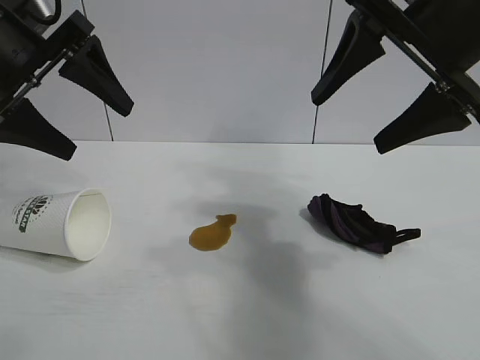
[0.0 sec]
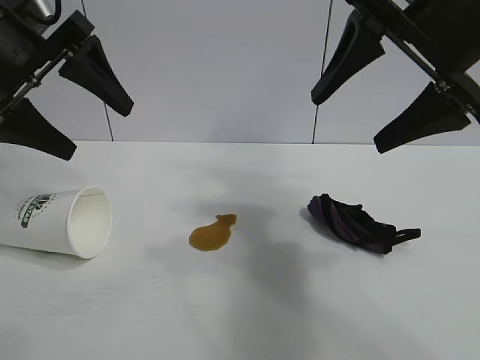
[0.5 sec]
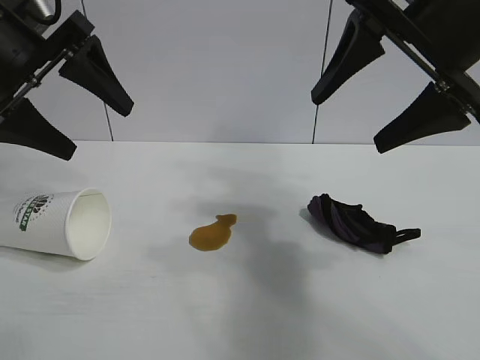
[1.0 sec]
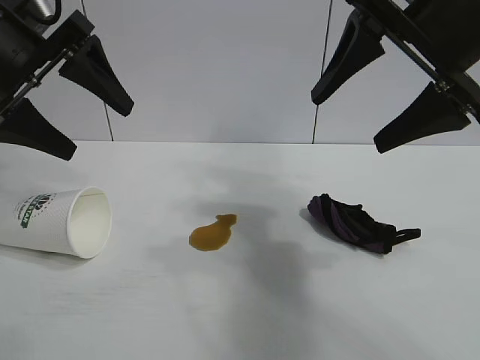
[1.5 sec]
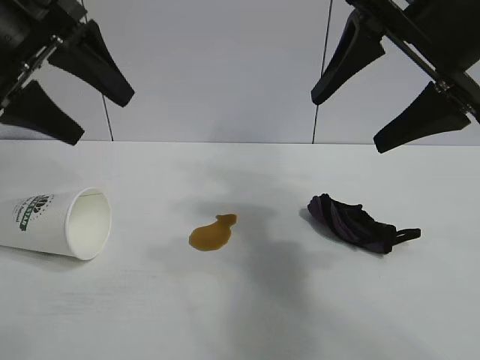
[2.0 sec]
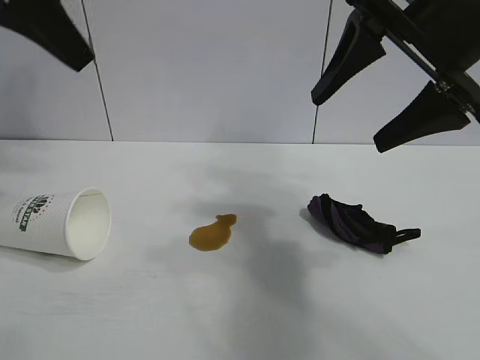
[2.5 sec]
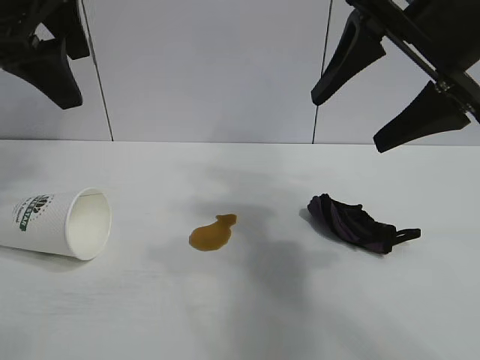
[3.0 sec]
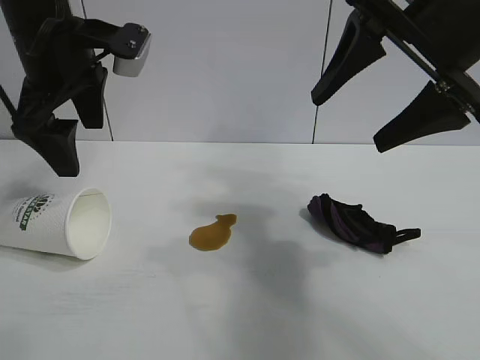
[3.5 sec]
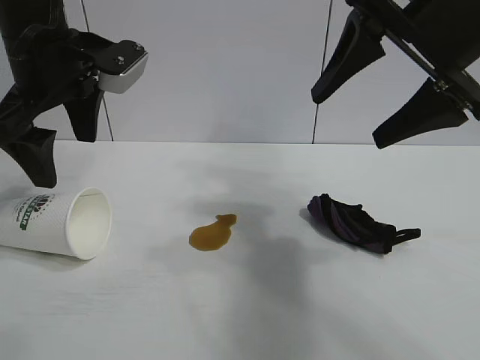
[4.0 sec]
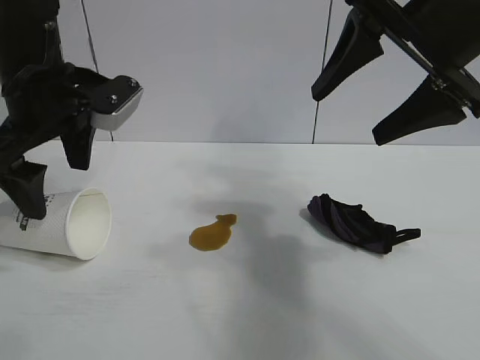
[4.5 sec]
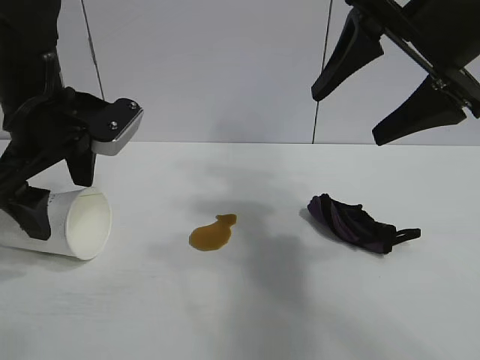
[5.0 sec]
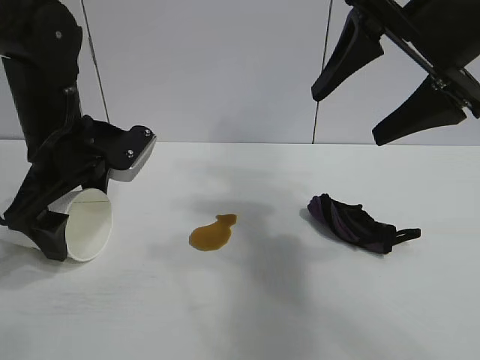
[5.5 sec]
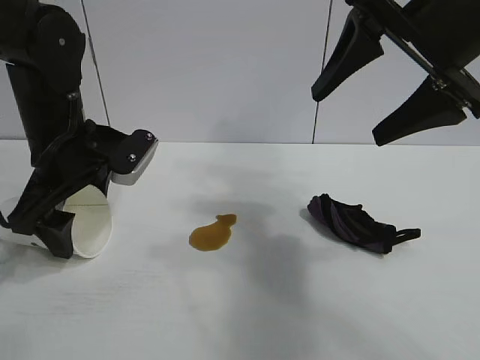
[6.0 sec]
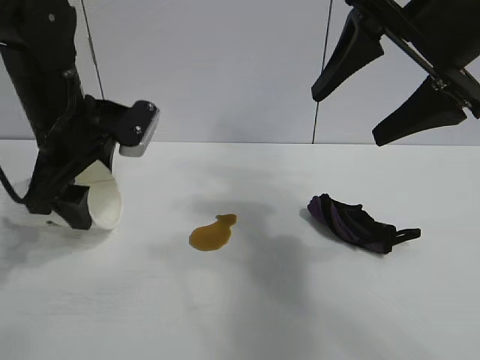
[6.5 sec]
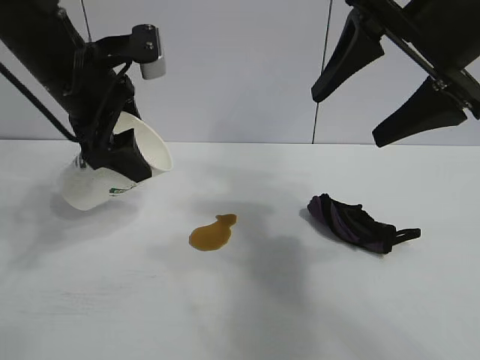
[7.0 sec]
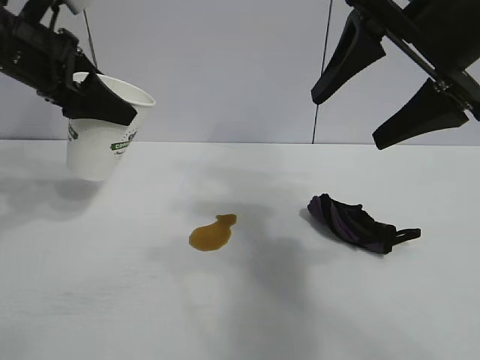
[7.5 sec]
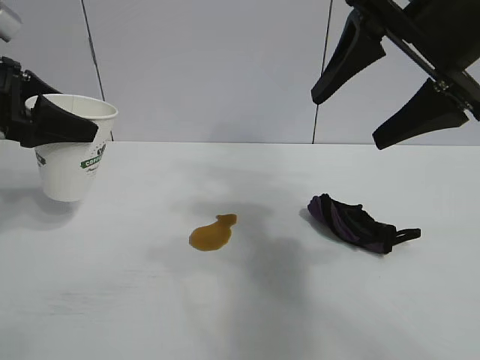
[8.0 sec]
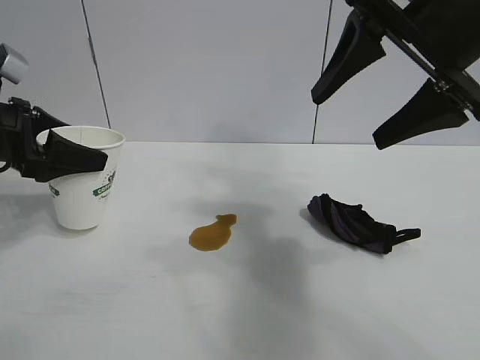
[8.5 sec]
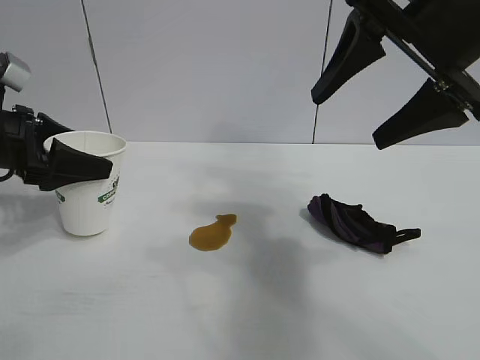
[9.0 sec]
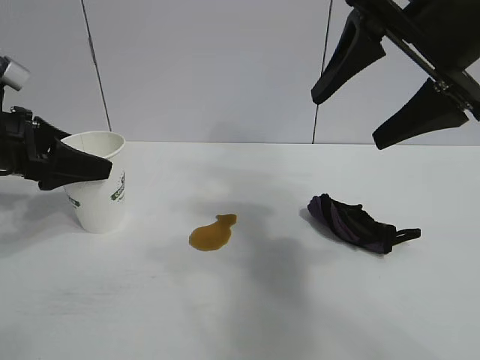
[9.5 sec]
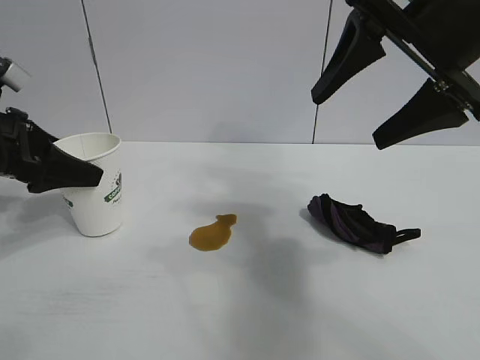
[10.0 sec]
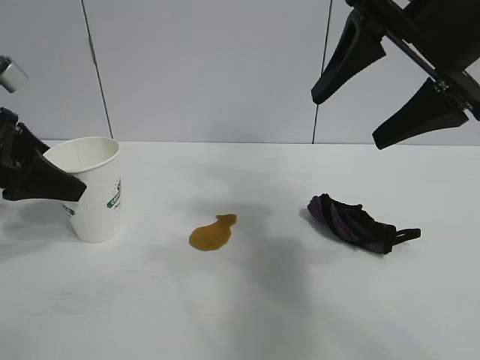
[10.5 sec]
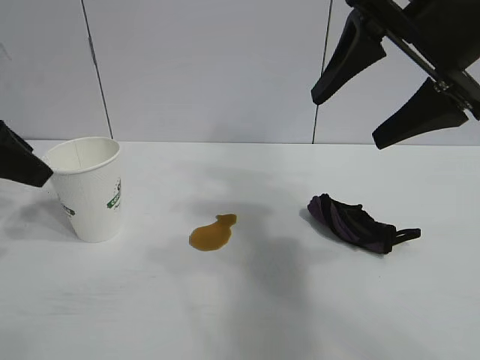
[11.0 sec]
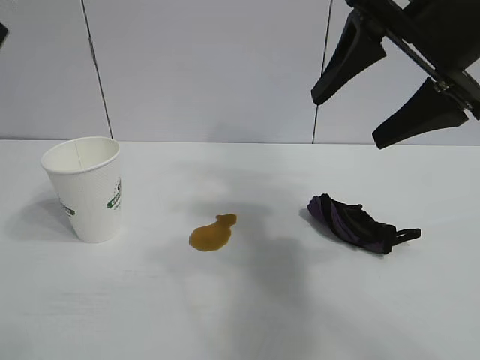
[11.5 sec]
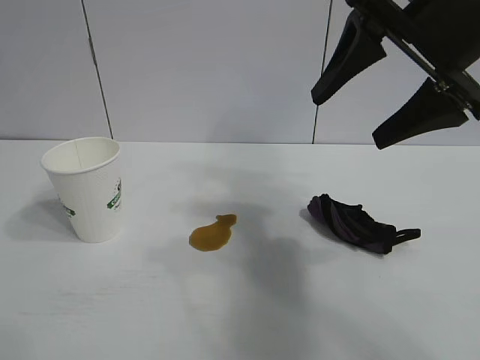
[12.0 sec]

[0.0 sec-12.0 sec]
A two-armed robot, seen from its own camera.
Task of the whole recording: the left gripper pick up the fallen cup and place it upright, the right gripper grasp the black rag and wipe the stain on the table, the right gripper put the black rag back in its original position.
Step, 2.0 sec to 6.0 sec: Grasp the paper cup with left gripper.
Step, 6.5 sec to 10.0 sec: Stand the paper cup upright with left gripper.

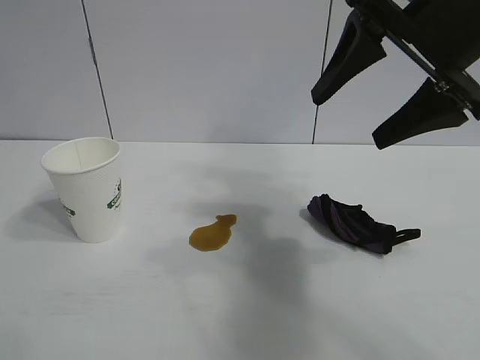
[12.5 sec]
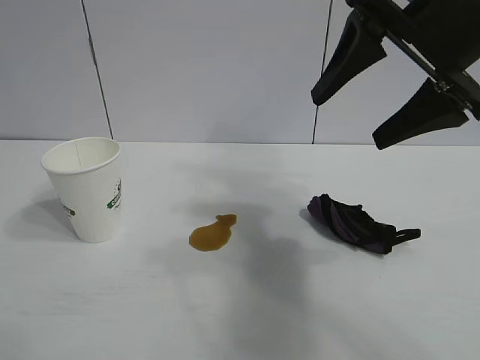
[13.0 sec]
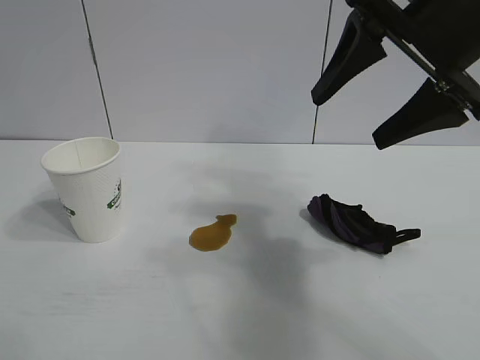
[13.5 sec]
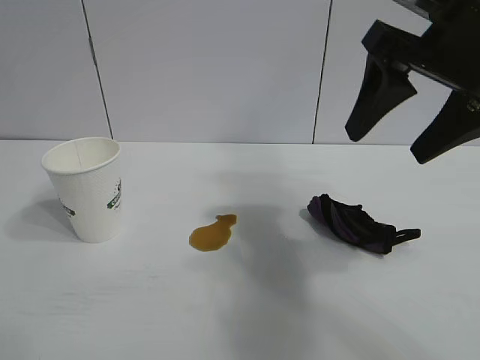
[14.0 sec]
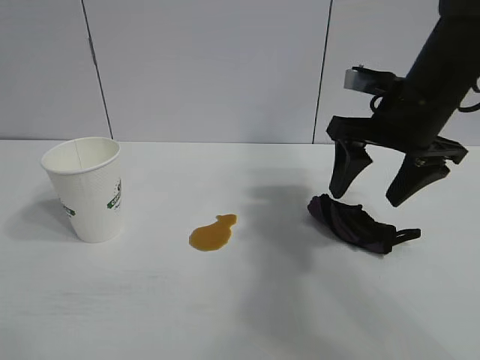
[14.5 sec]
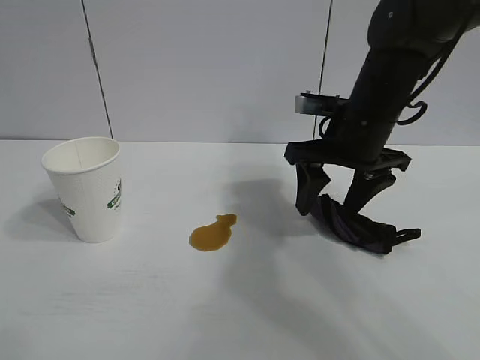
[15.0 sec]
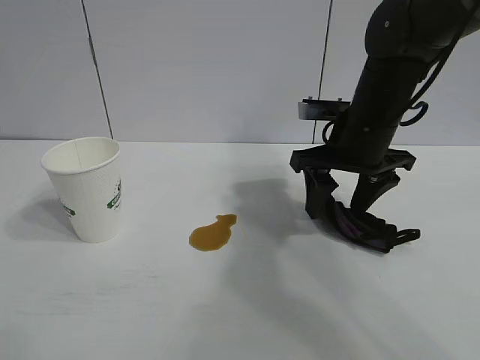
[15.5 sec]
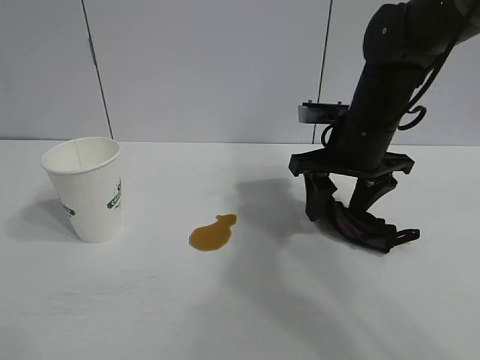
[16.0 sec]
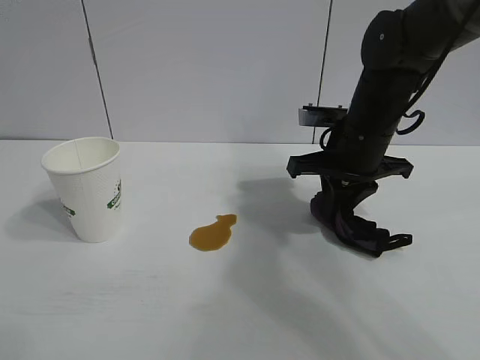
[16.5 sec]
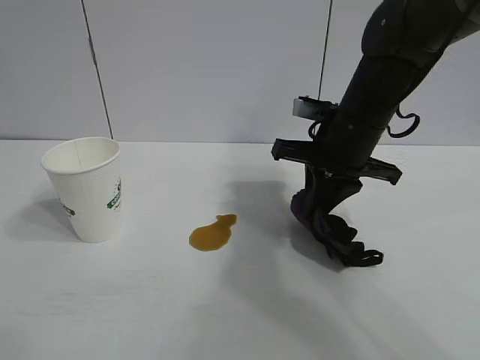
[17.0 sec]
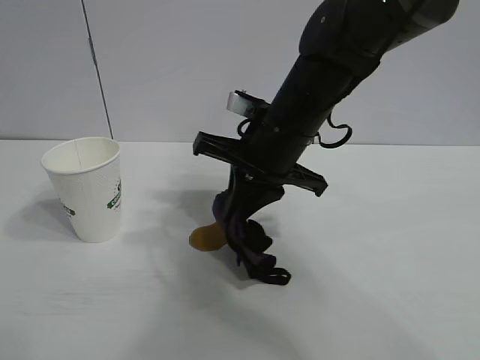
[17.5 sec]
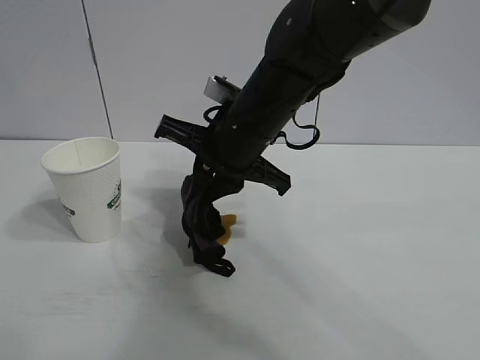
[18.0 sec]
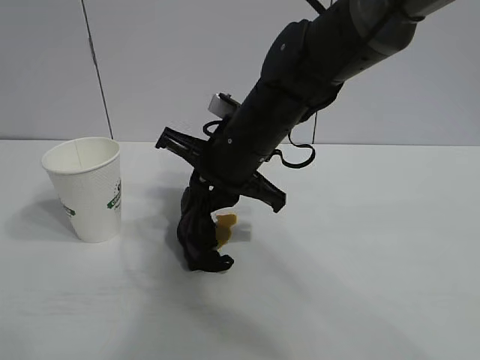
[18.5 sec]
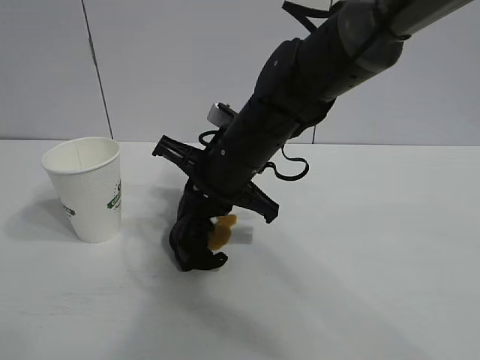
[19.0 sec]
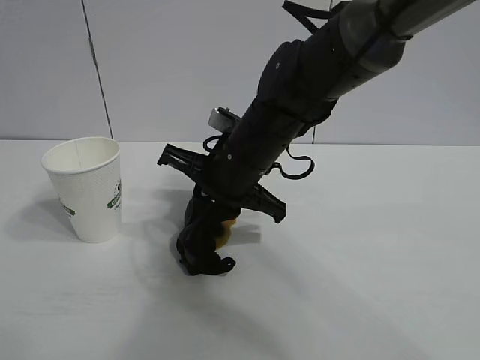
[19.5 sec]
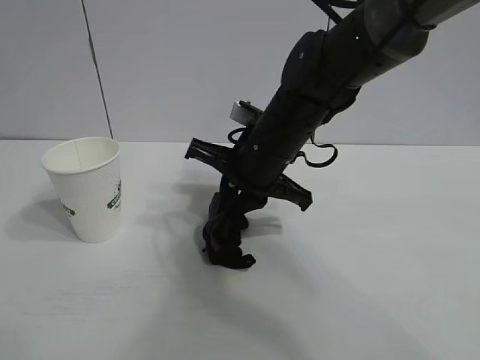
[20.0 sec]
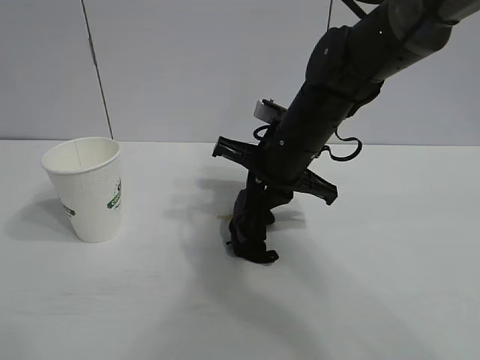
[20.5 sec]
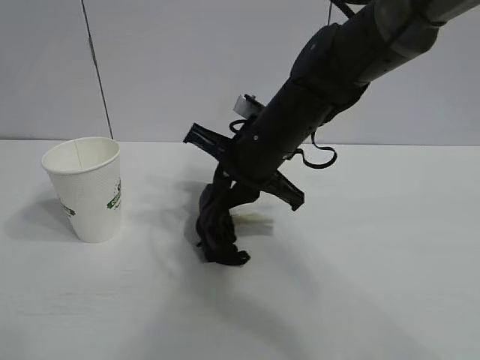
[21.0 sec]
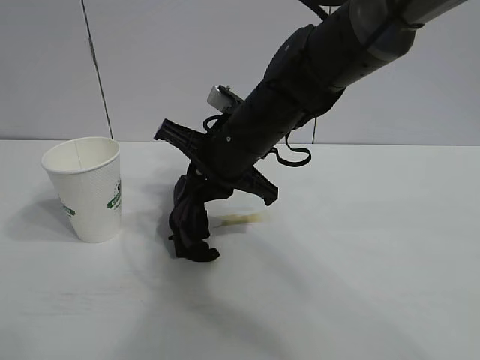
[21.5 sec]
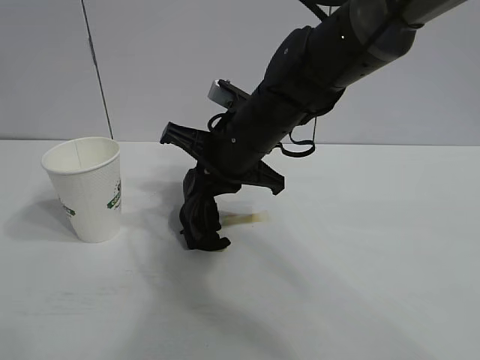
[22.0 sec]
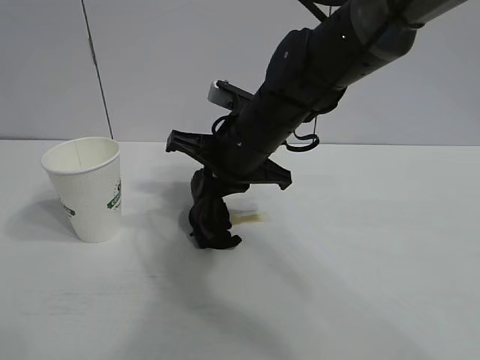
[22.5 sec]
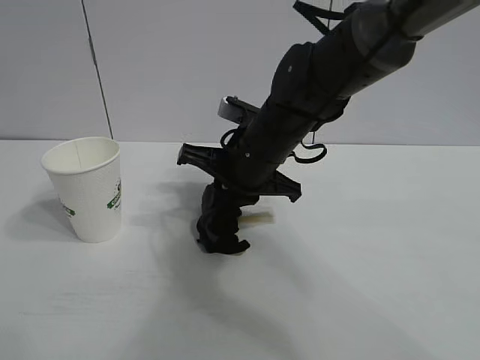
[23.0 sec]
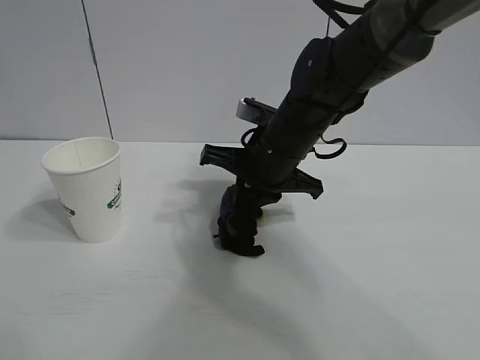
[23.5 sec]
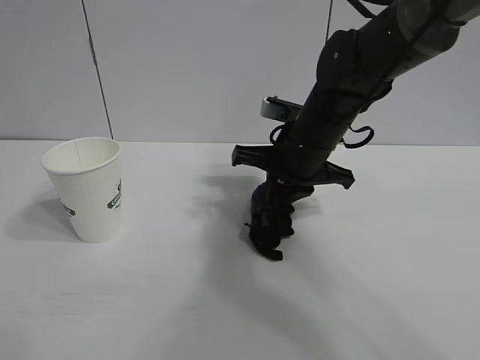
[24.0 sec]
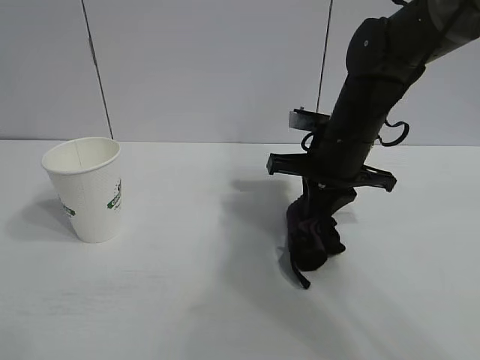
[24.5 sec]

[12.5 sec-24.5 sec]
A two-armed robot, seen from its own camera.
Task of the whole recording: the left gripper pick up the fallen cup and place it upright, the right gripper grasp the black rag and wipe the stain on the table, the right gripper put the black rag back in its original position.
Step, 12.5 sec to 16.5 sec: Grasp the rag with right gripper.
Step, 17.0 sec to 24.0 sec: Wipe the stains off the table with the rag with right gripper.
